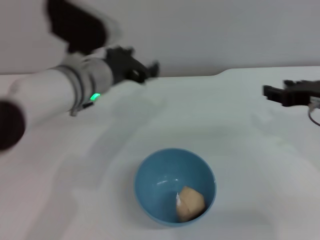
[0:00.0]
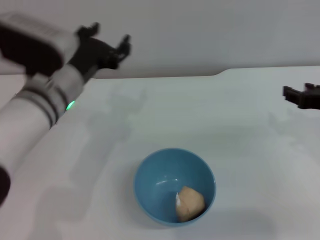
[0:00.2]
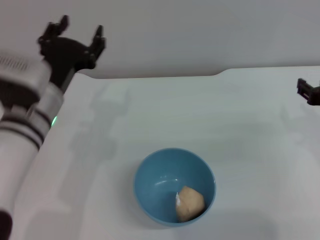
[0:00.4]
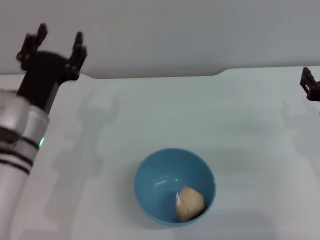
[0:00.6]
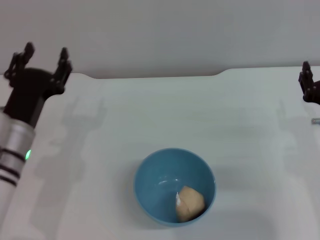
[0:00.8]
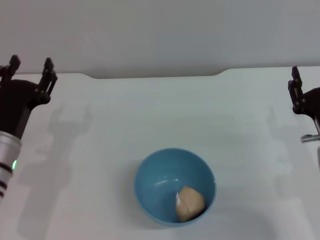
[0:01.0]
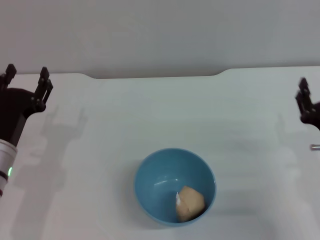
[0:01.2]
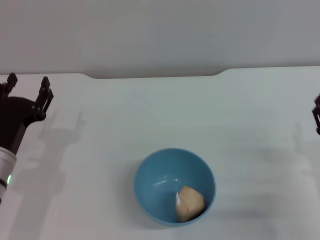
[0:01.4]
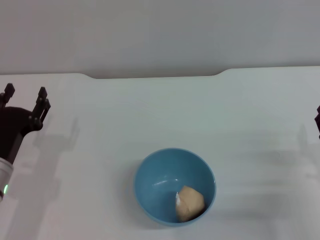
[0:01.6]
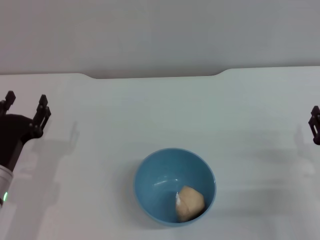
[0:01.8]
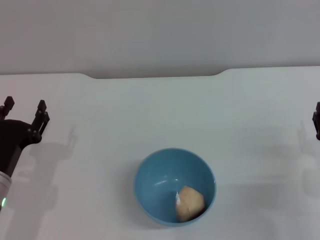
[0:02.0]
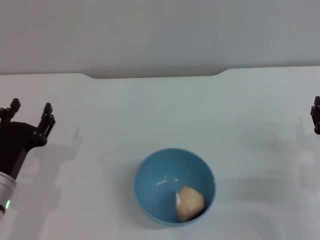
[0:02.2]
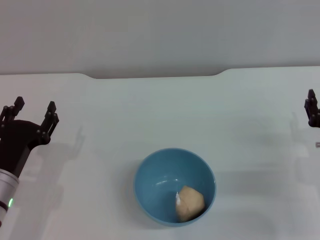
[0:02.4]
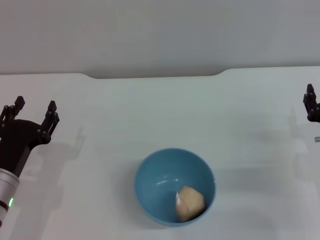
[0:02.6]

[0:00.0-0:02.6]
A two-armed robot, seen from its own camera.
Task of the whole recording: put the egg yolk pastry into the blue bowl and pour it out repeatedly.
0:00.0 to 0:01.2: The right gripper shifts some 15 cm downward and backward. Meanwhile the left gripper goes about 20 cm to the left, downward and backward.
0:01.2 to 0:02.6: There are only small adjustments of the grippers.
